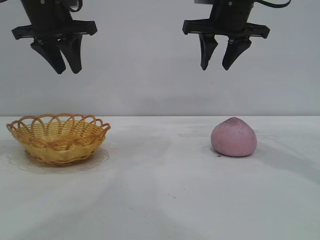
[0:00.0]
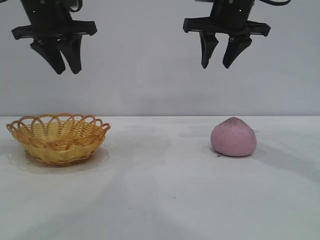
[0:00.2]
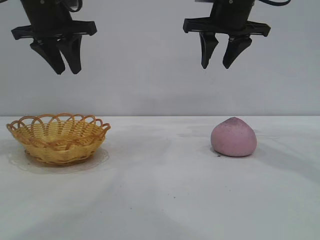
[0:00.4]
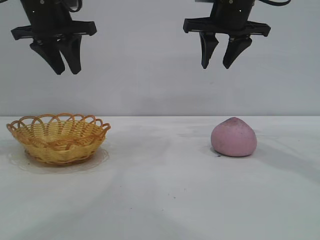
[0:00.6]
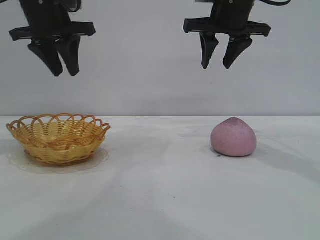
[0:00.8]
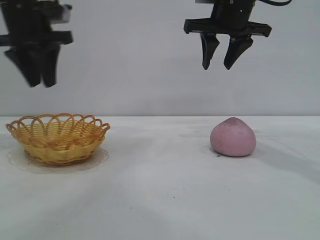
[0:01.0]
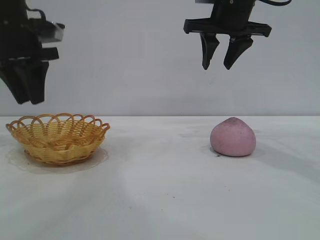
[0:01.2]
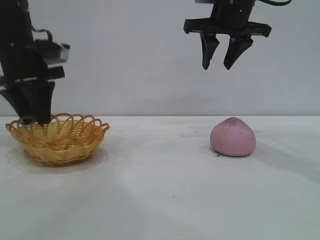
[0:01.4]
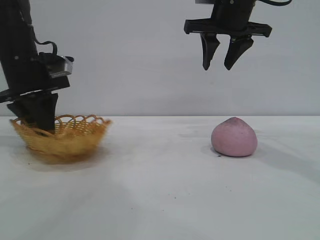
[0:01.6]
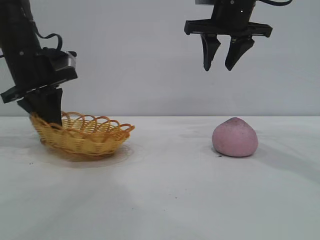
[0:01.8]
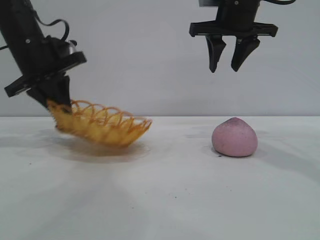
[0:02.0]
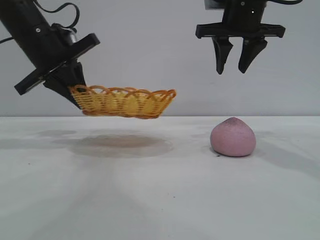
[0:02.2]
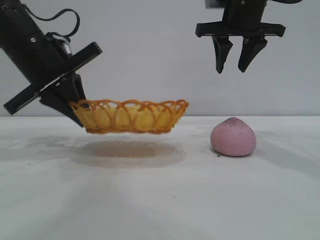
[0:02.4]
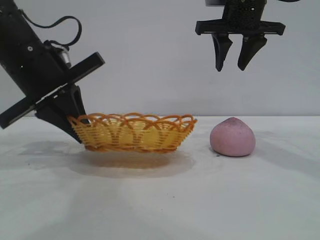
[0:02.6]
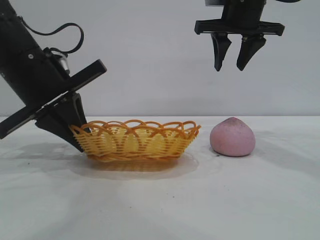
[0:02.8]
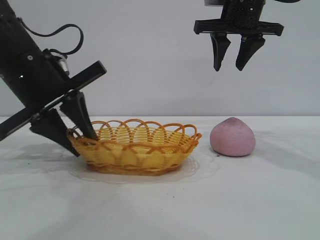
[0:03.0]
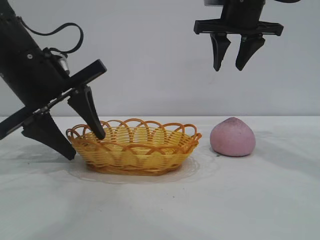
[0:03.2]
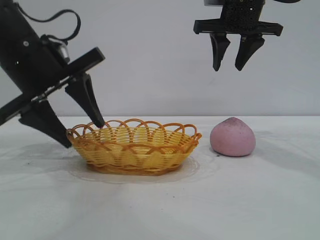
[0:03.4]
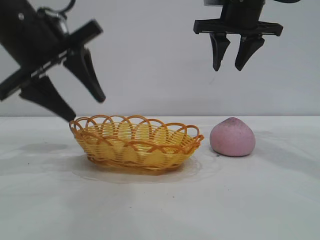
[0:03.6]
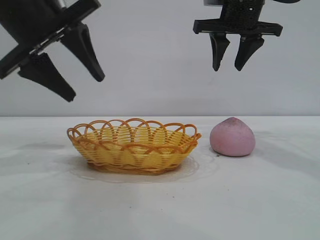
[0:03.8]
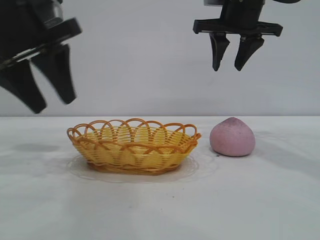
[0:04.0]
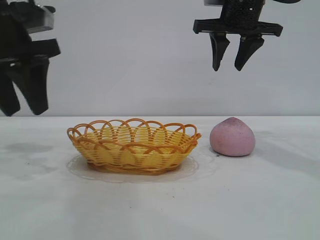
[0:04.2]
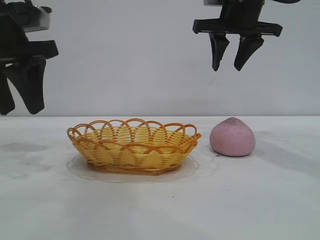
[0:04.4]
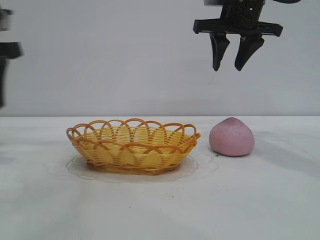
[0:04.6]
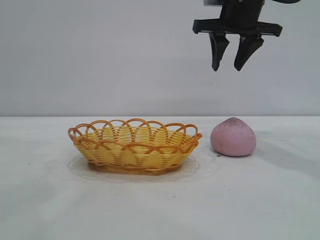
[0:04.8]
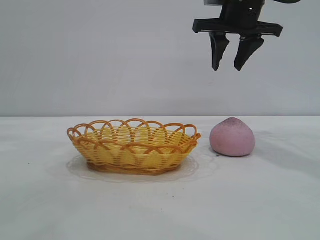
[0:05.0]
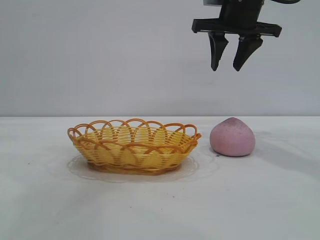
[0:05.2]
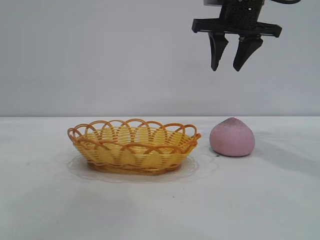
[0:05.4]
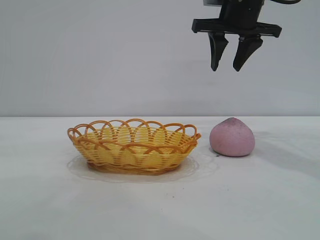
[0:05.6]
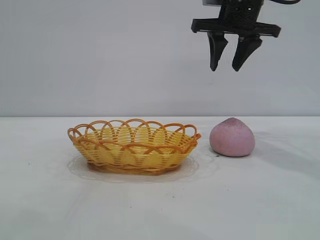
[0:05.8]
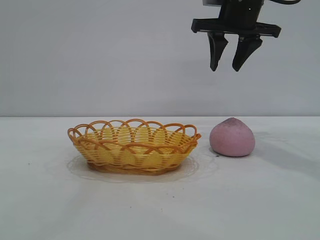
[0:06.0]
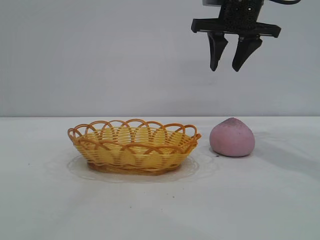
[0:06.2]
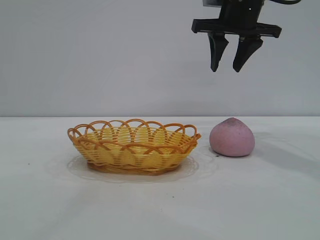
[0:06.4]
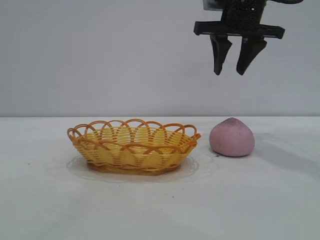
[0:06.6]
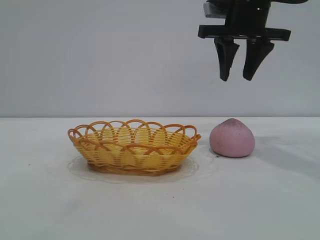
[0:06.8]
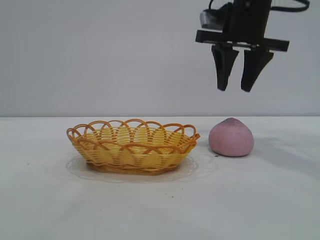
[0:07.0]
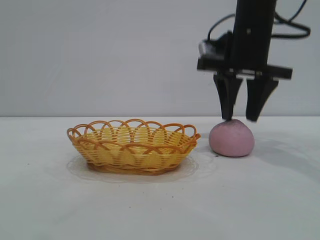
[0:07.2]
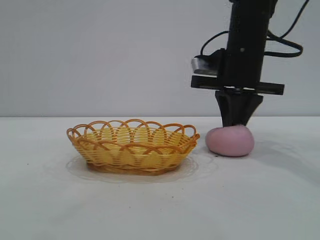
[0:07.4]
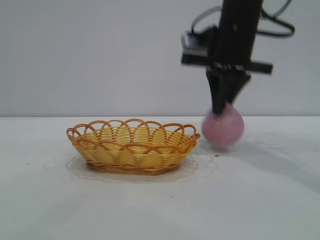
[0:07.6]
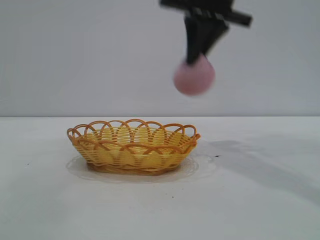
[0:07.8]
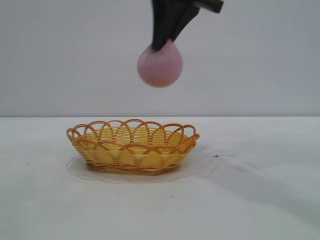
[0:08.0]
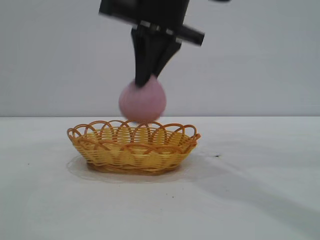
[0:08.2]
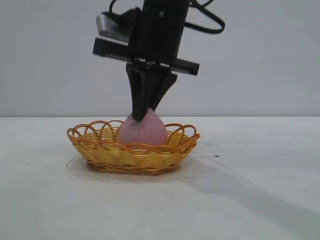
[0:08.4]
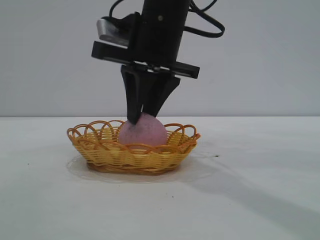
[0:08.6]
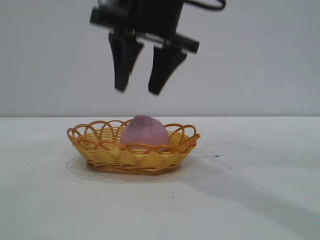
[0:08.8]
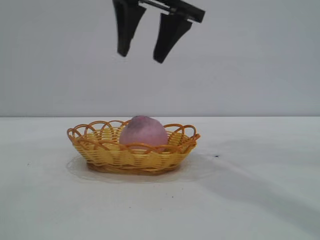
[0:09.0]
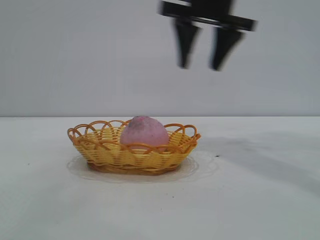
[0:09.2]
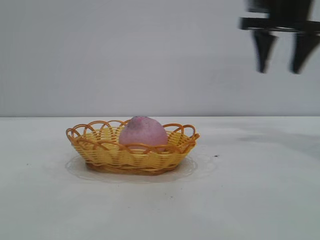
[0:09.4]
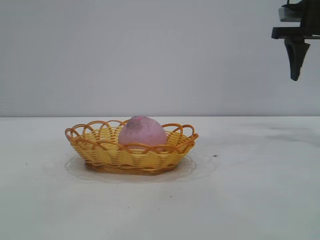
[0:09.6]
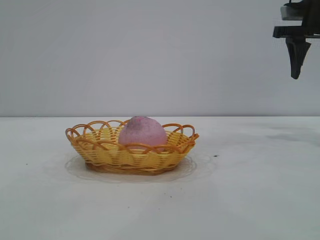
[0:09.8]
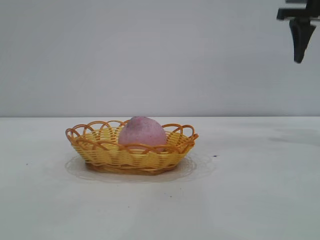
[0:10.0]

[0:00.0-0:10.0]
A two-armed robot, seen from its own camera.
Task of the whole recording: pick up the peach and put it into the basket.
Step, 0.0 to 3.8 s: Move the basket to the center of view.
Step, 4.0 to 7.6 s: Pick up the peach.
Step, 7.8 to 8.8 s: place the peach into the basket.

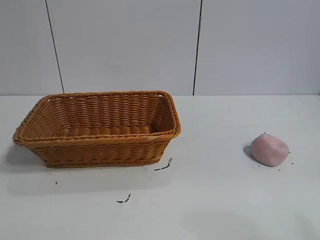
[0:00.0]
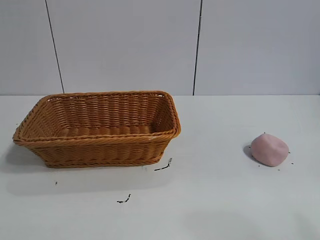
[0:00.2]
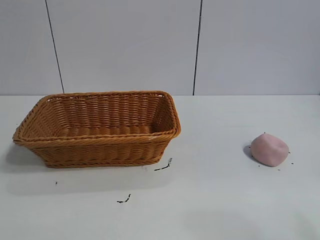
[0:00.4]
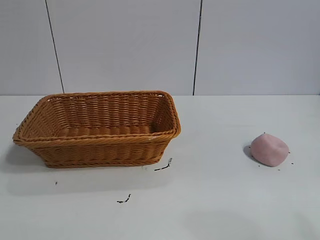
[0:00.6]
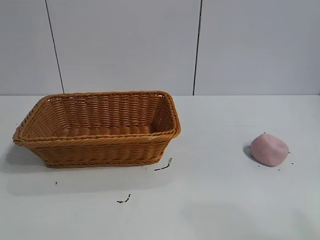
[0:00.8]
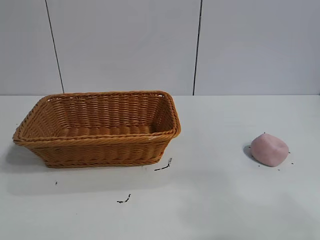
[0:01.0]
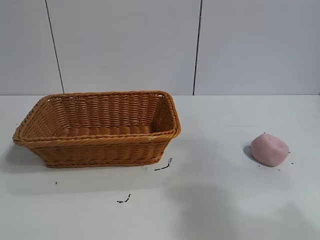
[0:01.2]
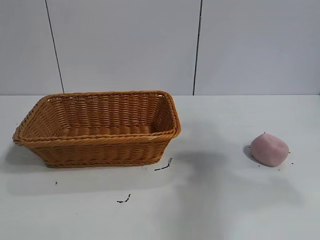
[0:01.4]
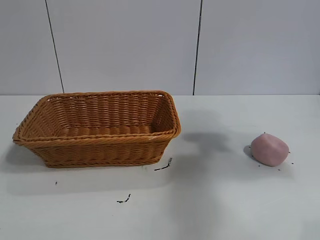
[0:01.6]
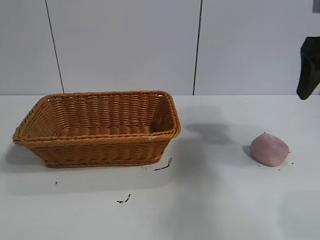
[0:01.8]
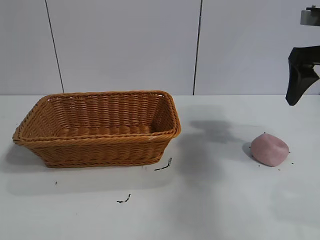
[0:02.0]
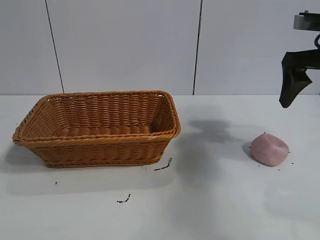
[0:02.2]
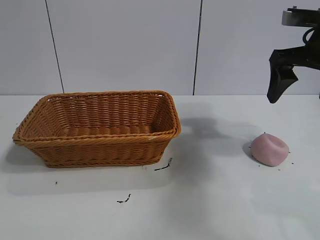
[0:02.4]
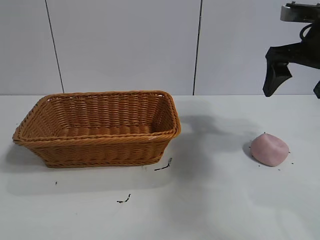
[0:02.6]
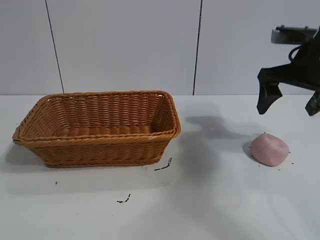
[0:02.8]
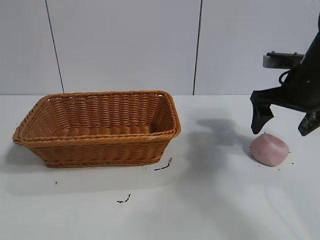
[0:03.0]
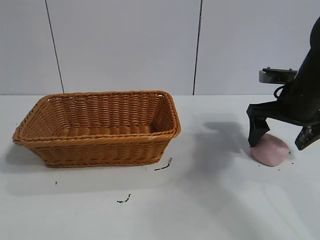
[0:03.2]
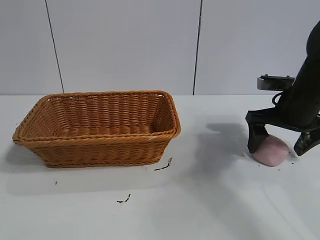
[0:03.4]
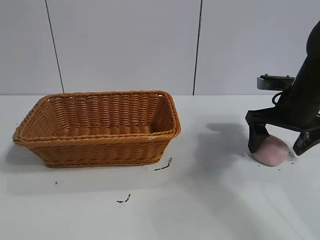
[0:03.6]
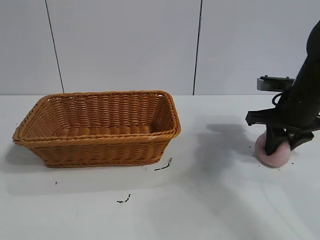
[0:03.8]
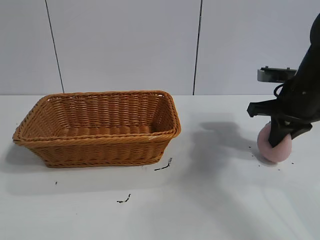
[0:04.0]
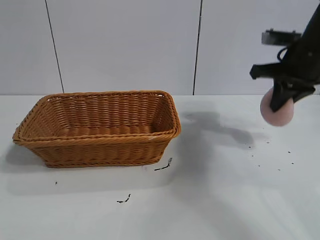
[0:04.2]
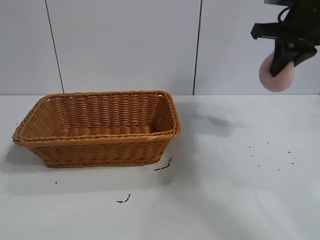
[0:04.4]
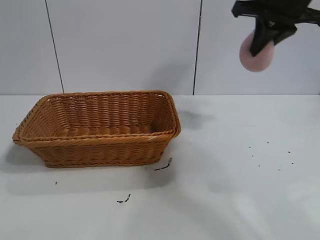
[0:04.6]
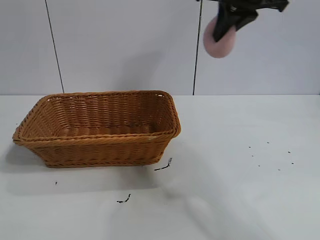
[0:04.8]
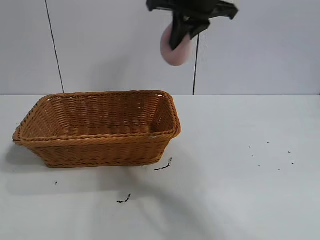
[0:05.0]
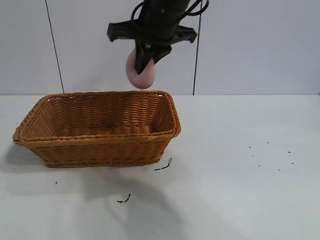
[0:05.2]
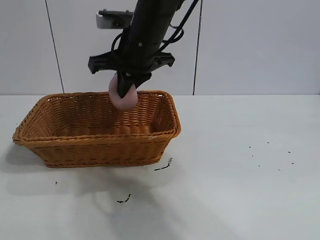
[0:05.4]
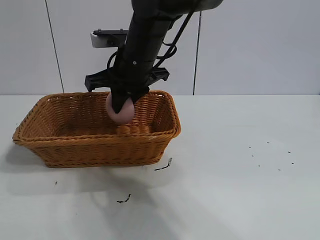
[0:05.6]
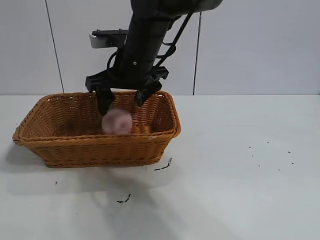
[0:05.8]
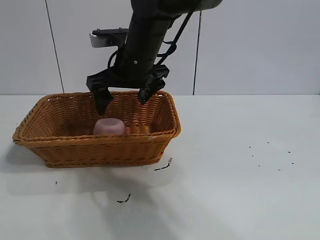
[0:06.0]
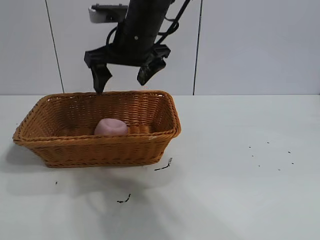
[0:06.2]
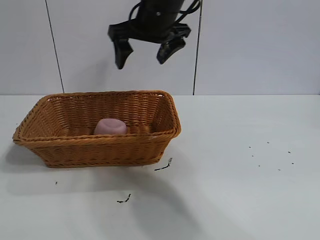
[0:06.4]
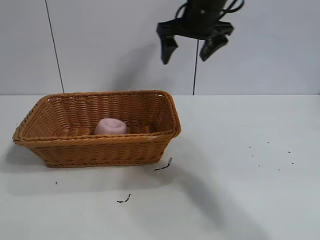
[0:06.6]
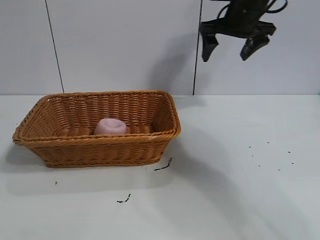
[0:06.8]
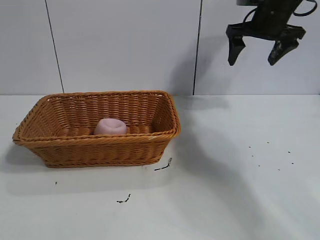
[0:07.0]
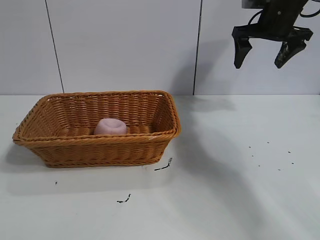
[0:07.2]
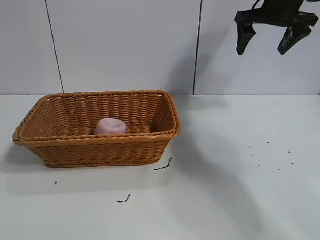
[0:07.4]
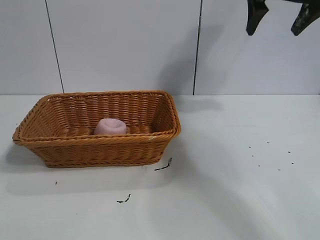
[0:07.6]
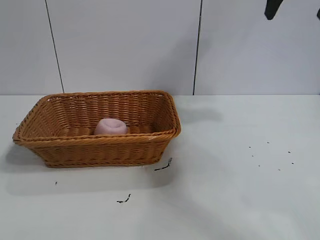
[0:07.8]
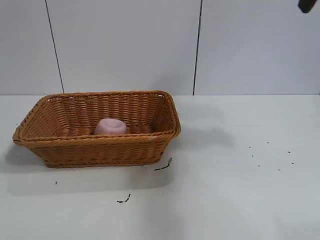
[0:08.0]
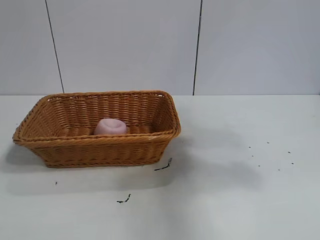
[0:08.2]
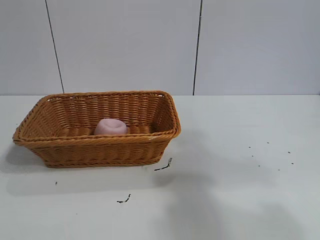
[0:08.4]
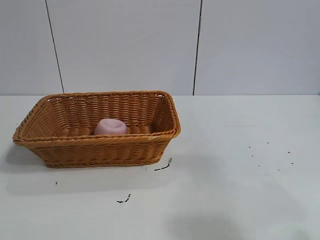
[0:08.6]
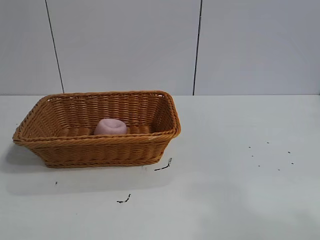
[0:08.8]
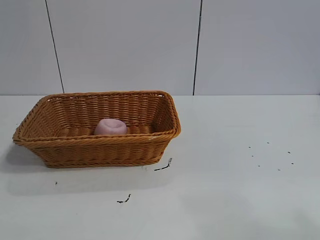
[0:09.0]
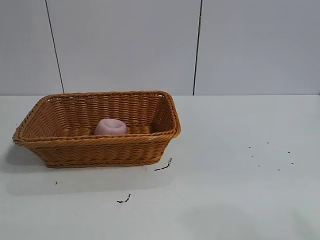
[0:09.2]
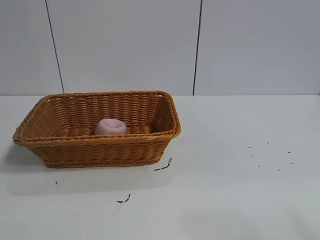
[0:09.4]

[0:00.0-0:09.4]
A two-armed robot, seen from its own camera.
Task of the whole recording: pick up the peach and put it into the basket.
Step, 0.8 to 3.8 s: Grasp the peach with right gripper.
Step, 4.0 to 5.8 s: Place the peach in the basket with right gripper.

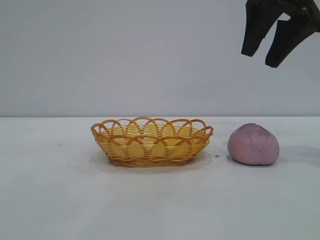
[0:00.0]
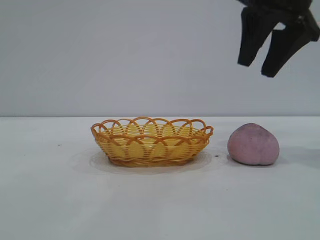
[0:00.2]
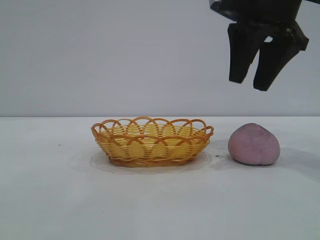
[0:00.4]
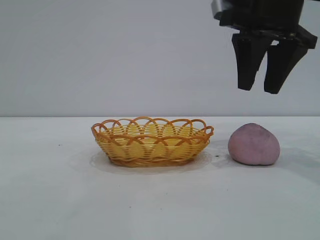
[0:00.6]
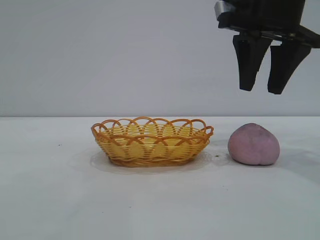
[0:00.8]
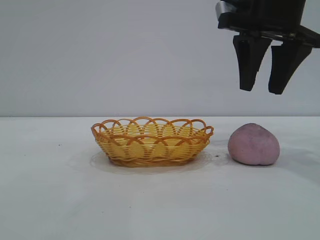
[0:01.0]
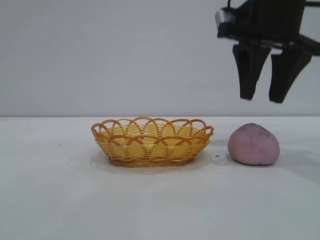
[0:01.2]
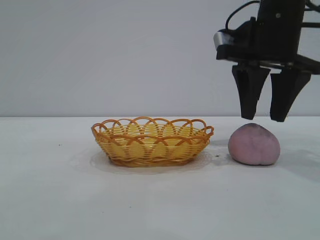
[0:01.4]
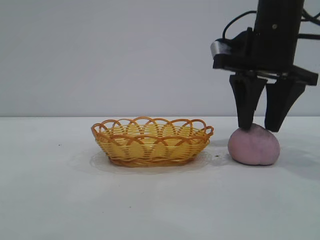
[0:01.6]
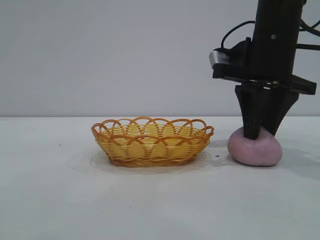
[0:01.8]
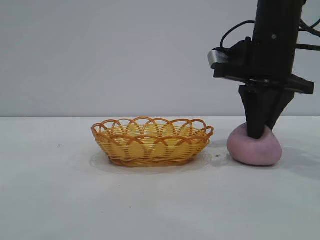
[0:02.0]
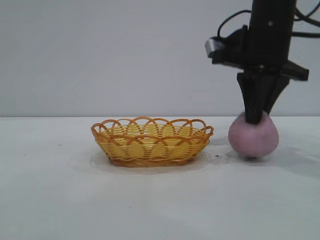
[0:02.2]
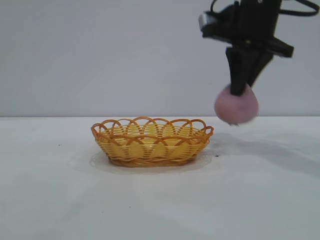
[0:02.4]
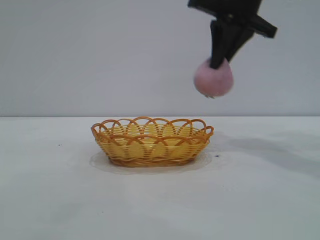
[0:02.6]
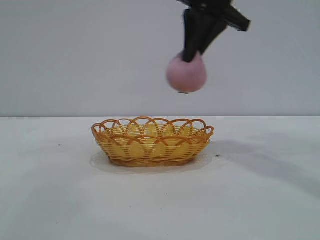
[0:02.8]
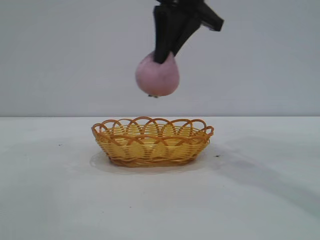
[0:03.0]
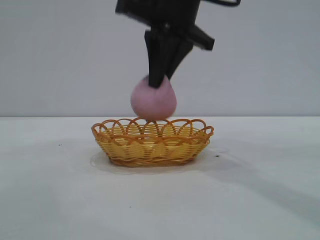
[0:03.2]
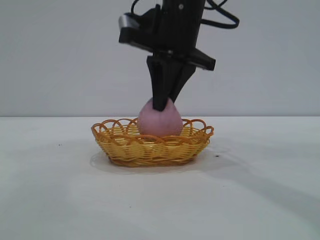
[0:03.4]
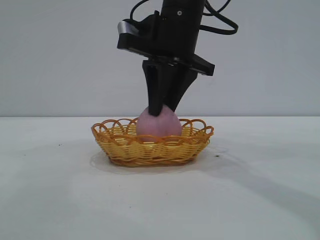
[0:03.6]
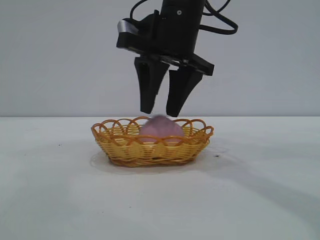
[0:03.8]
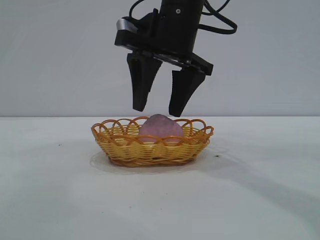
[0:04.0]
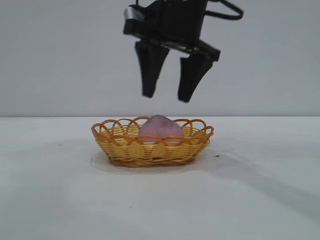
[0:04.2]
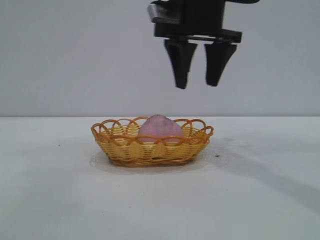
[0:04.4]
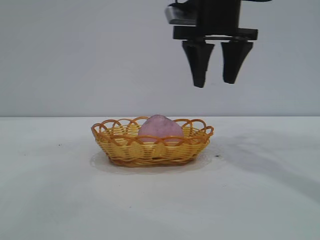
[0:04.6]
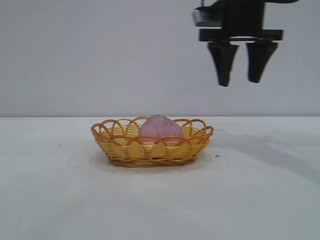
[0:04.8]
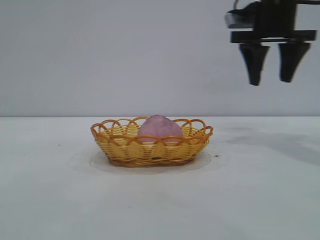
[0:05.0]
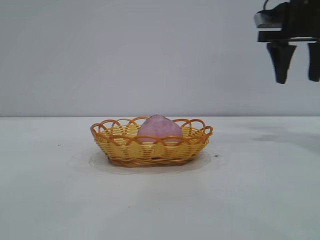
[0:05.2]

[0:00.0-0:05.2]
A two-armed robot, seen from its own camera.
Task of the whole recording: pick up the peach and put it into the basket.
Step, 0.0 to 2.4 s: Pick up the peach.
Step, 2.6 to 4.6 s: place the peach into the basket.
